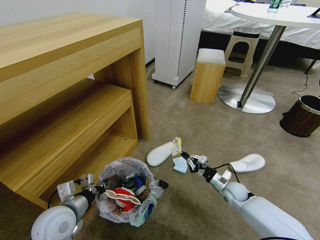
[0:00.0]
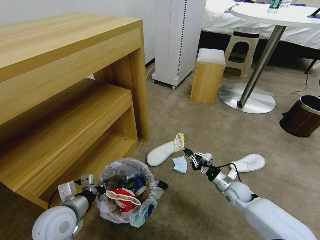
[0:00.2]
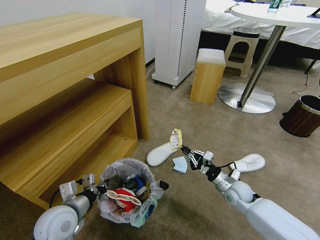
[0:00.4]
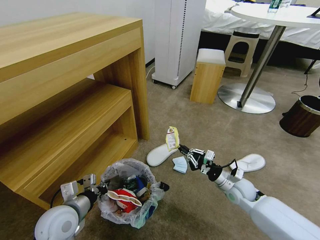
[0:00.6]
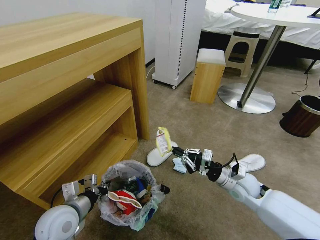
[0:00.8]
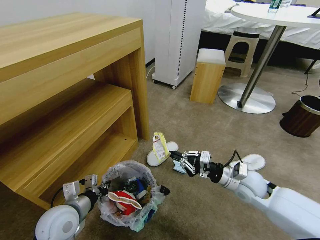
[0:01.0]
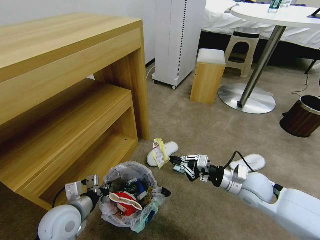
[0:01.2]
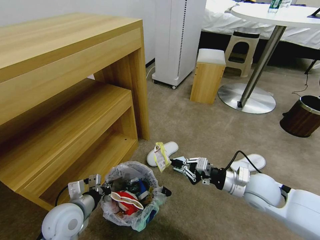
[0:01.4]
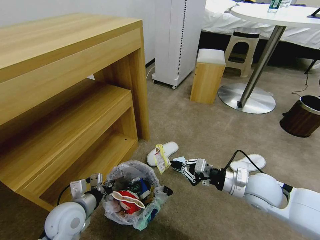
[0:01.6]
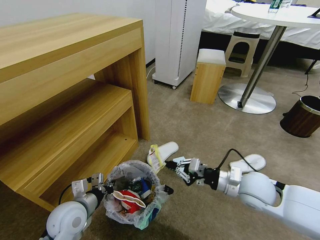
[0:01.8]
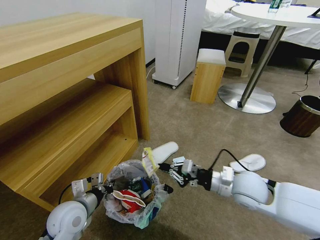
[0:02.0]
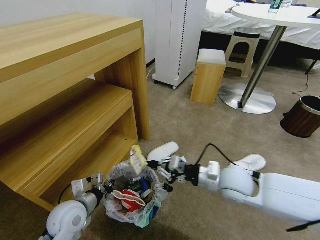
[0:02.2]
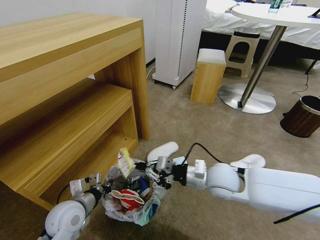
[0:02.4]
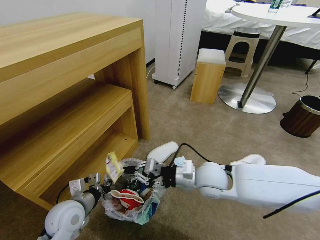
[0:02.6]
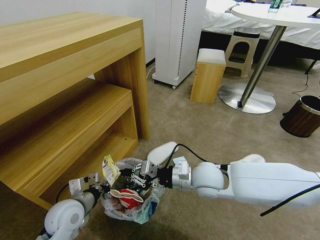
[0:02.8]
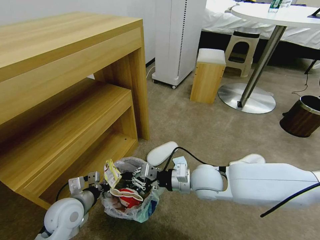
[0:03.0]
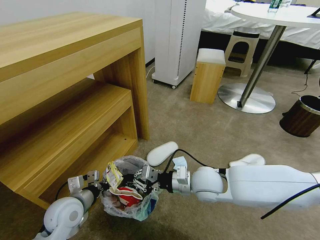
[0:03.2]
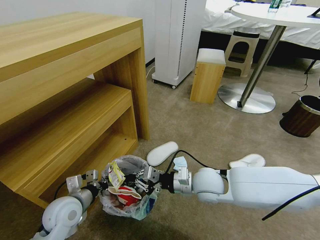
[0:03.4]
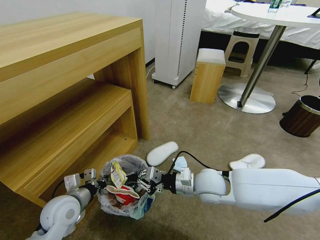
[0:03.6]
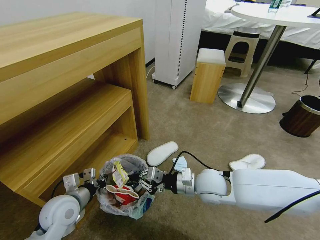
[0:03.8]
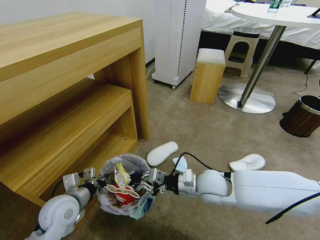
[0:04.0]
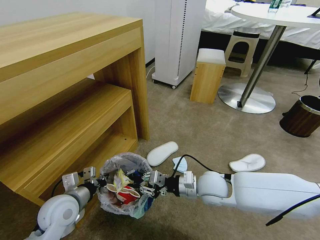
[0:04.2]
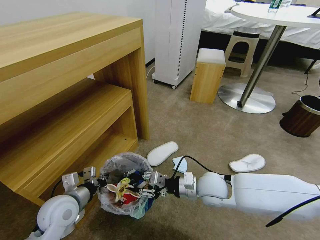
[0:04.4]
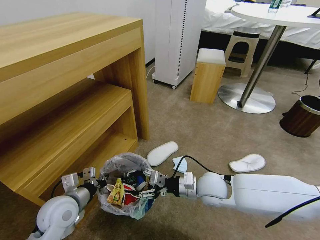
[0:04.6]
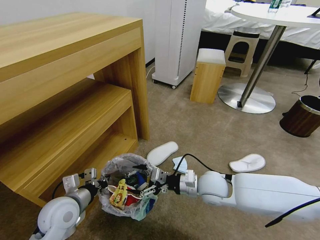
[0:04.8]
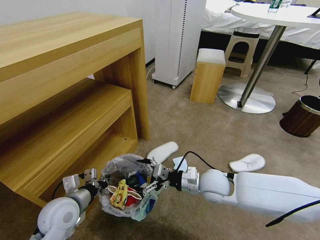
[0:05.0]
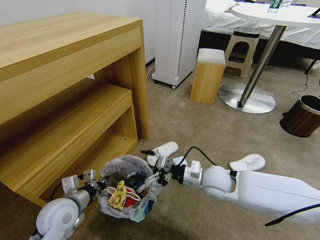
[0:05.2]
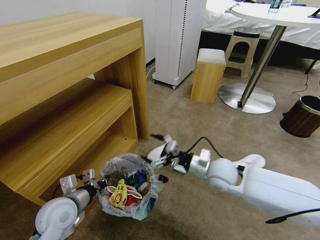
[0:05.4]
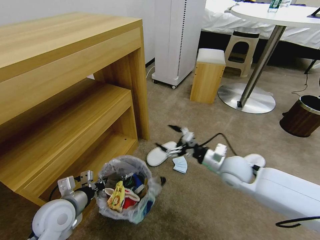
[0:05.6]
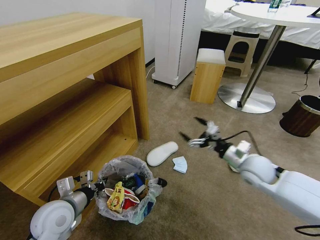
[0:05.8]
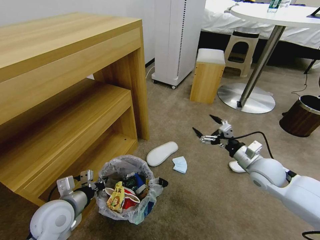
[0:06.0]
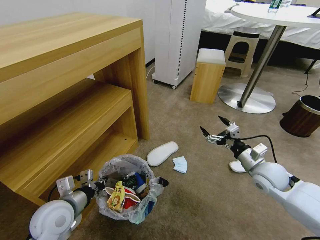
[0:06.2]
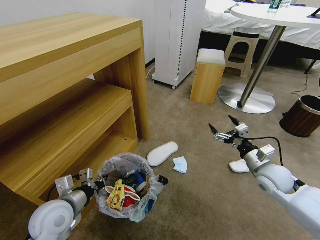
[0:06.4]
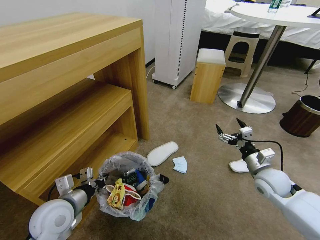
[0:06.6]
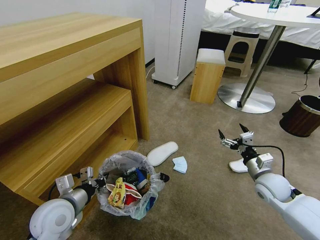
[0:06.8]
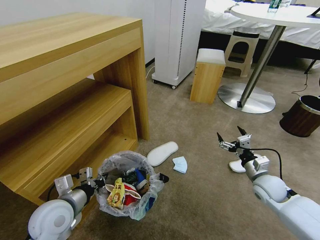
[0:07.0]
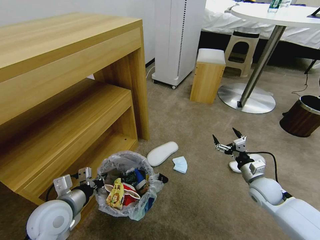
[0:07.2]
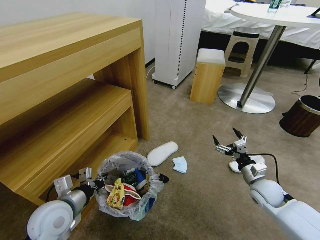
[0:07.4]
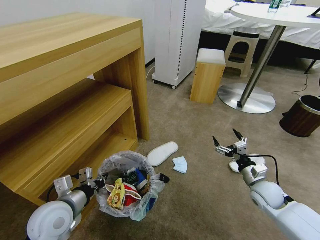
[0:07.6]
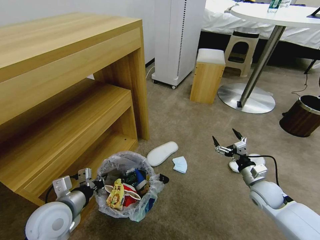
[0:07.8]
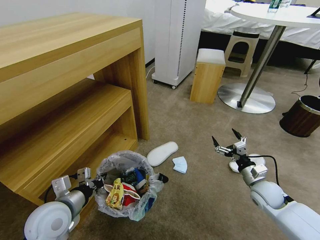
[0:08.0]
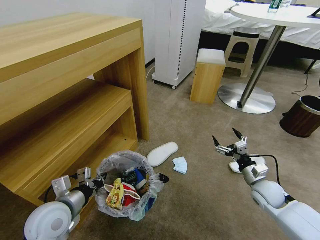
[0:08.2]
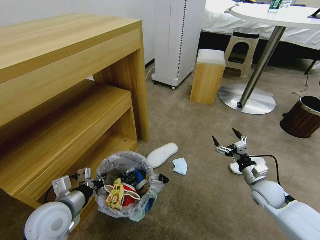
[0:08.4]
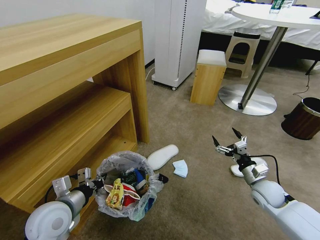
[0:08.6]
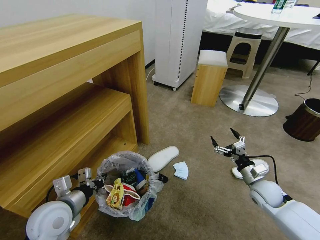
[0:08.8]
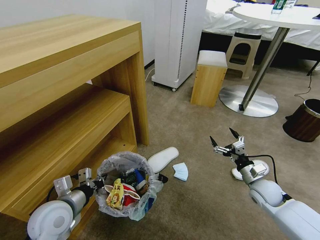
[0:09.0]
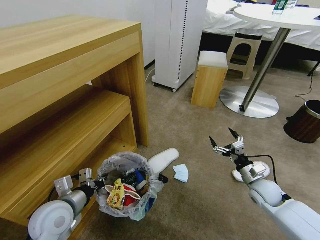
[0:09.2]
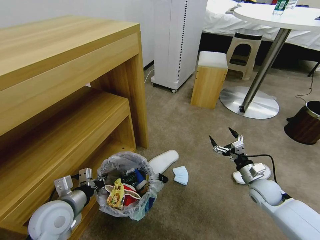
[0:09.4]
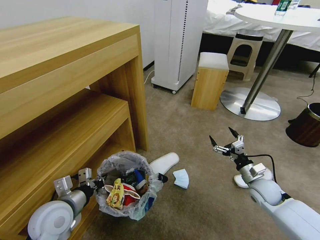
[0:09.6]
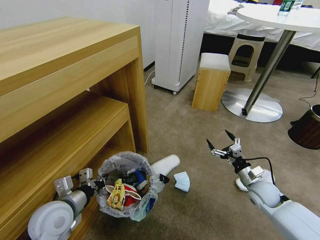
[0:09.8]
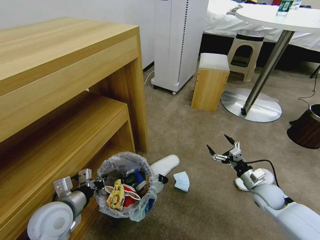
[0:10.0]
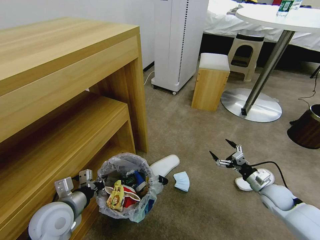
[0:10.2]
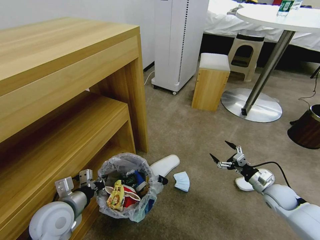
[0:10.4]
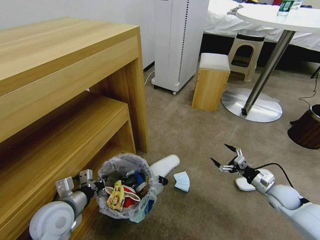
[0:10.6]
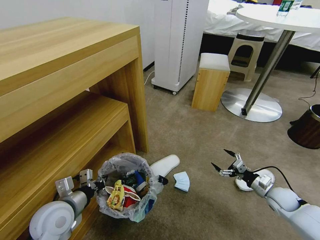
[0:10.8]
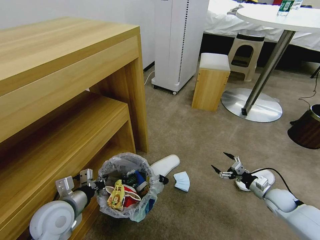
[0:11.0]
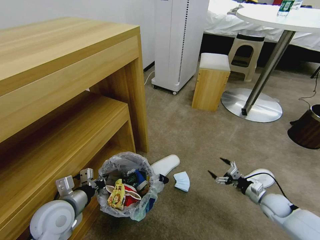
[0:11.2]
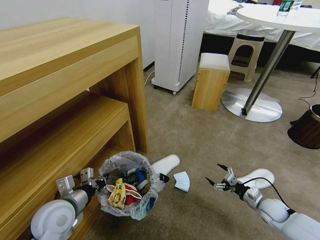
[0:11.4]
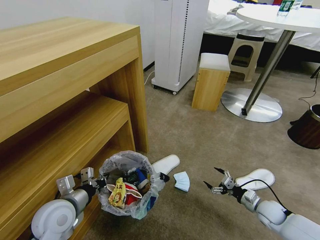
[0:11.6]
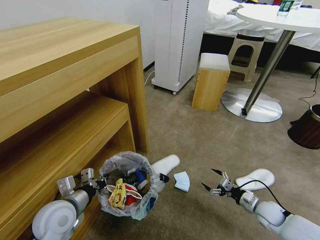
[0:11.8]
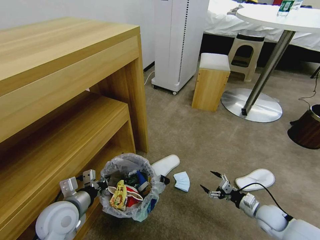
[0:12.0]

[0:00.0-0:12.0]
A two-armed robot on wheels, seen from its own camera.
Task of the whole recording: Pick up the trash bin and place the garbage on the floor into it.
0:00.0 to 0:01.6: The right gripper heads upward, covering some 20 cm.
0:01.6 to 0:03.0: The right gripper travels to the left by some 15 cm.
0:03.0 to 0:04.4: The right gripper moves roughly 5 cm, and opens up.
0:04.4 to 0:06.0: The right gripper heads to the right, covering approximately 20 cm, and opens its fingers.
0:06.0 to 0:07.6: The right gripper is displaced downward by approximately 10 cm.
0:07.6 to 0:09.0: The two grippers keep their place.
0:09.0 to 0:10.4: The right gripper goes roughly 5 cm to the right.
0:10.4 to 0:12.0: The right gripper moves downward, roughly 5 cm.

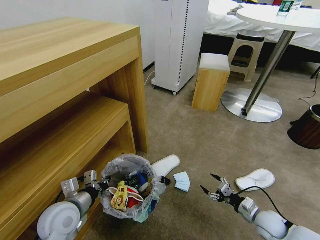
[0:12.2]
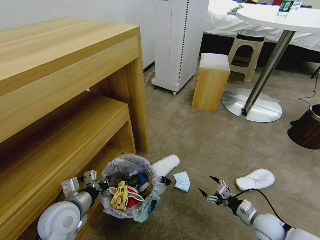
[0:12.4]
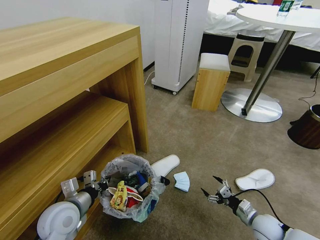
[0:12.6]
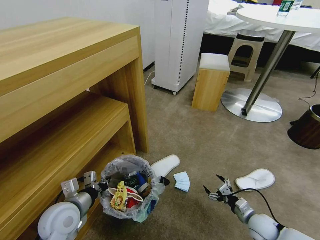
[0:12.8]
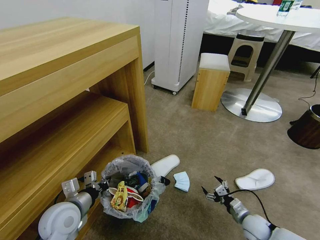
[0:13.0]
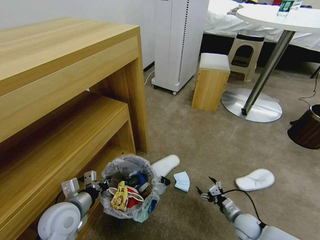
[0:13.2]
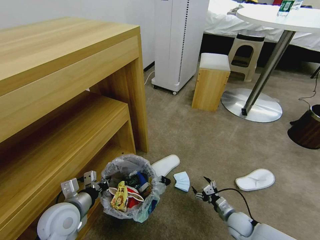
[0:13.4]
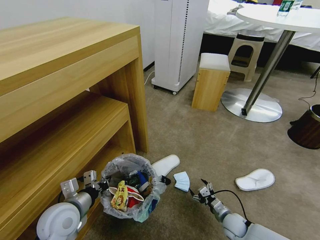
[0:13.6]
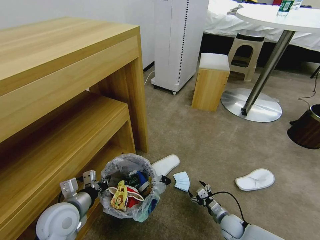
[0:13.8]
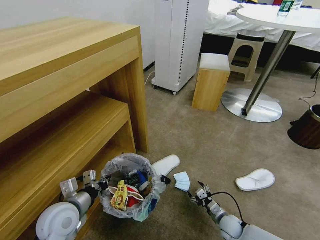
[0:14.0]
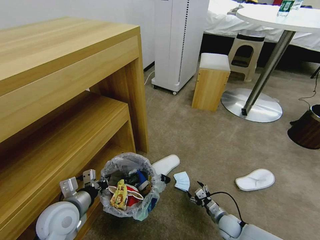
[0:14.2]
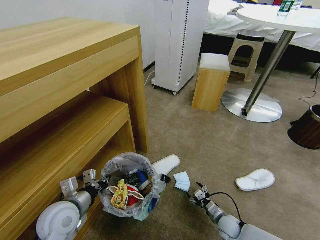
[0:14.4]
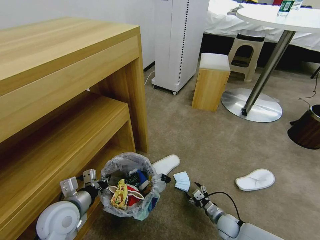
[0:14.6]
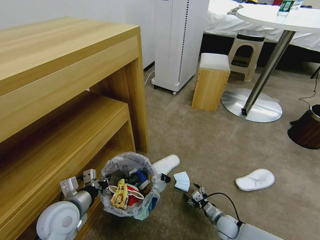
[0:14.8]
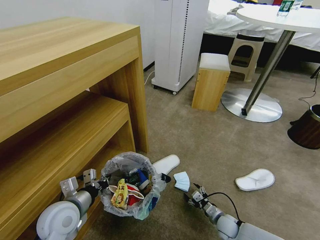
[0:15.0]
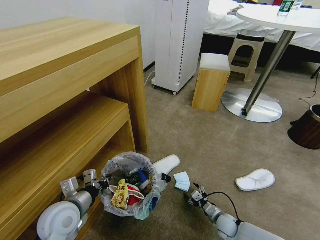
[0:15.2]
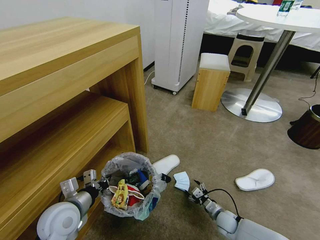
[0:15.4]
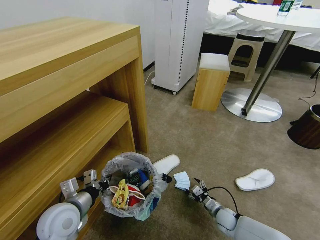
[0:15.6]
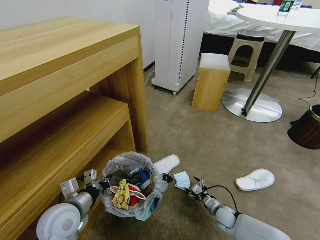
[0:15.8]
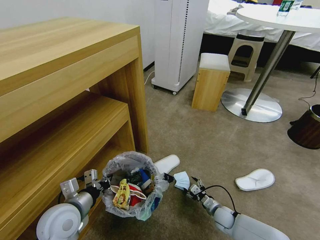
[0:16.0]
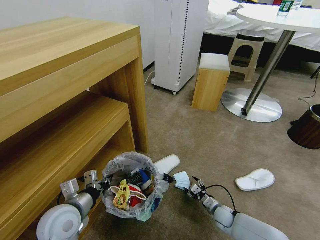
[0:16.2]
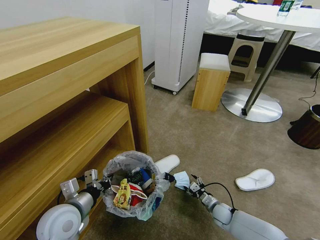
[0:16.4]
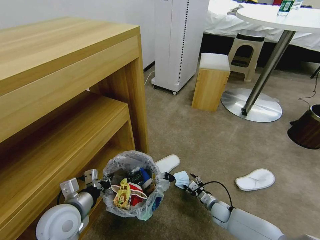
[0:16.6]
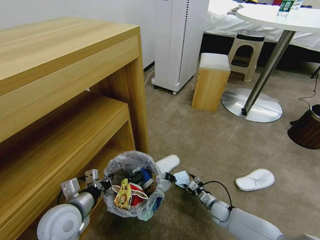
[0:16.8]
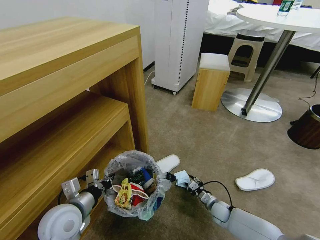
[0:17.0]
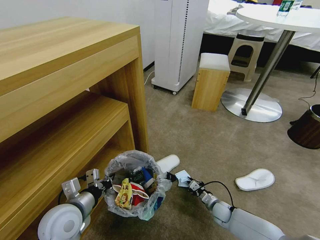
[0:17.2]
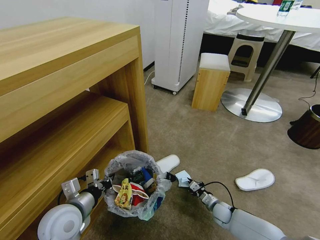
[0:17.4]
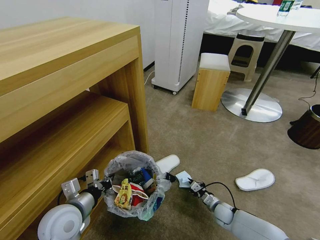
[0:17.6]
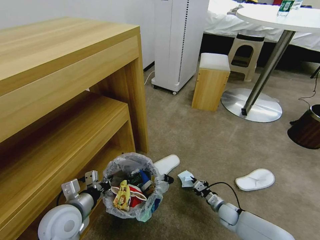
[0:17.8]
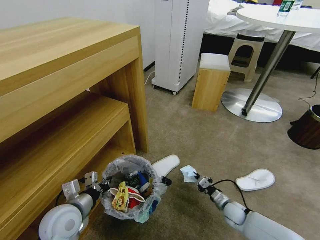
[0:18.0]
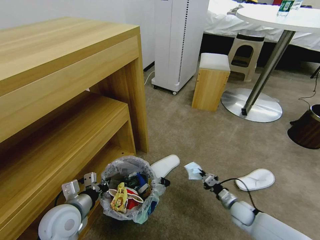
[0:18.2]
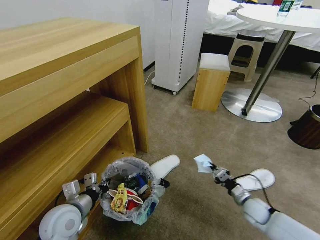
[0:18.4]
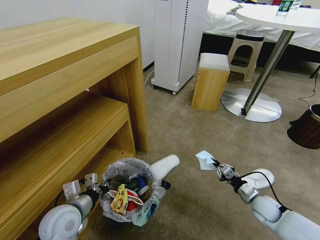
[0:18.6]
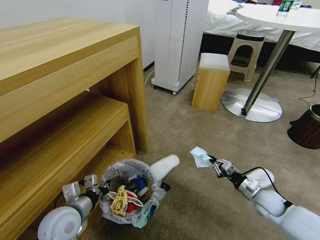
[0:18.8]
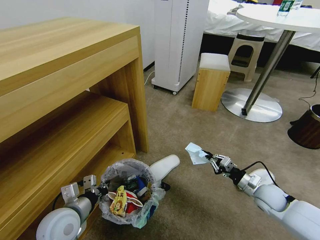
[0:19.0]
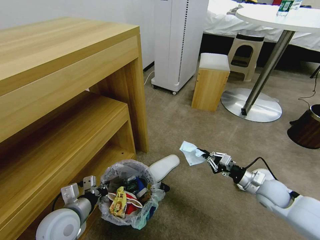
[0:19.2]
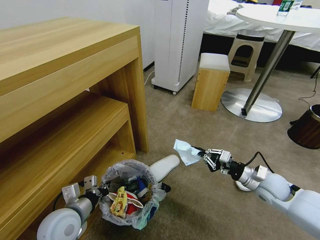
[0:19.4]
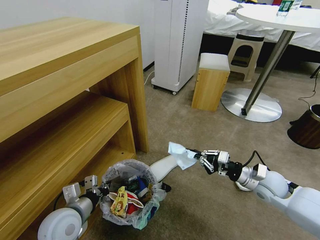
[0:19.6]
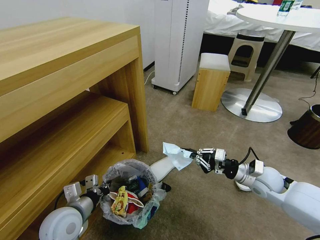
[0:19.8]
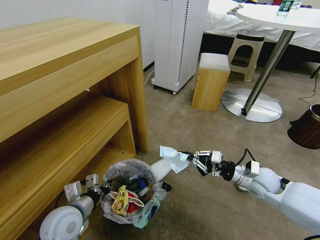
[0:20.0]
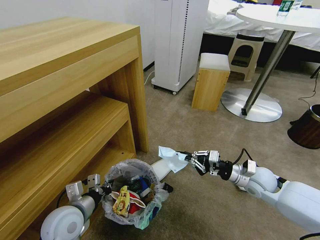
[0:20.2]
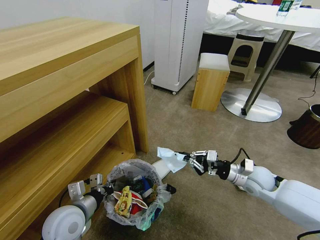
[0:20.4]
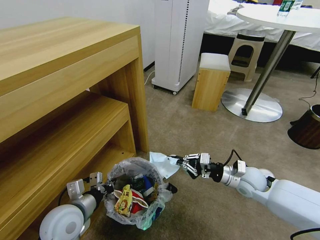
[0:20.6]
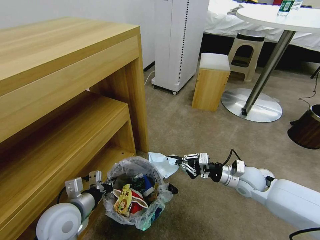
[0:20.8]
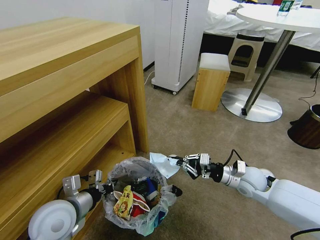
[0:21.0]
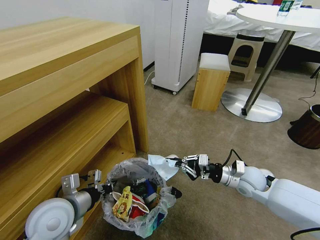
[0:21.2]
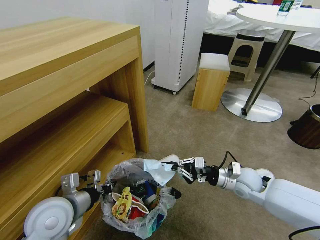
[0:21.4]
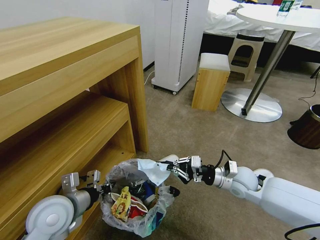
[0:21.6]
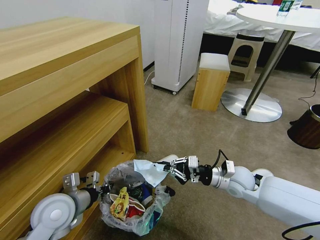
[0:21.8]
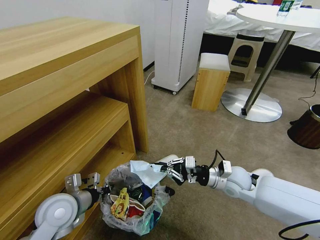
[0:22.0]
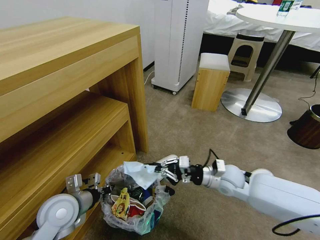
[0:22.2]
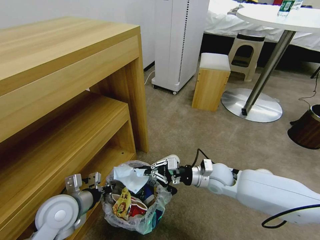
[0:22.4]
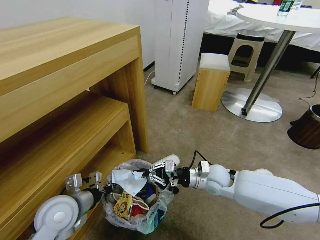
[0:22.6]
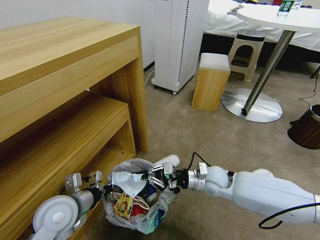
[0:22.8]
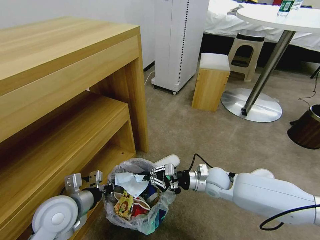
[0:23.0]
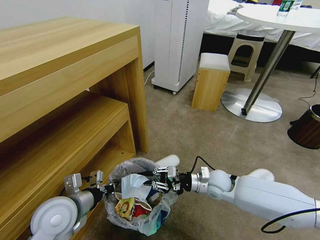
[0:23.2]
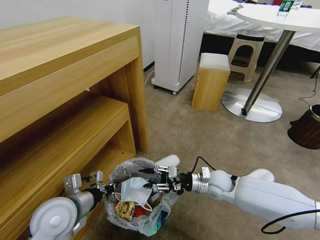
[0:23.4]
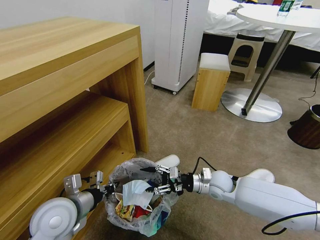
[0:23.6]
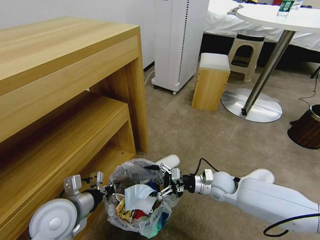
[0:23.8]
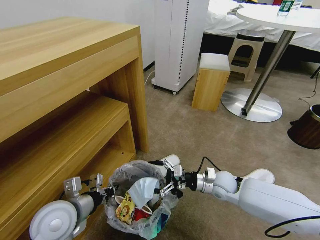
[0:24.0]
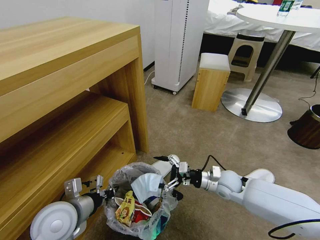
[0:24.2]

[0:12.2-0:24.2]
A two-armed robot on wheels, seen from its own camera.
Task of the whole recording: Pick up the trash bin and place the garbage on the floor into it.
0:12.2 to 0:13.8: The right gripper heads to the left and downward, covering about 15 cm.
0:13.8 to 0:15.2: There are only small adjustments of the grippers.
0:15.2 to 0:16.6: The right gripper heads forward, covering roughly 5 cm.
0:16.6 to 0:18.2: The right gripper goes about 10 cm upward and to the right, and closes its fingers.
0:18.2 to 0:19.8: The right gripper goes roughly 20 cm upward.
0:19.8 to 0:21.2: The left gripper shifts some 5 cm upward.
0:21.2 to 0:22.6: The right gripper heads to the left, covering roughly 10 cm.
0:22.6 to 0:24.2: The right gripper moves to the right, some 5 cm, and opens its fingers.
